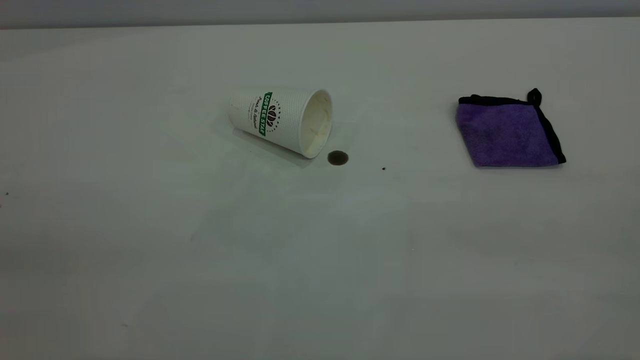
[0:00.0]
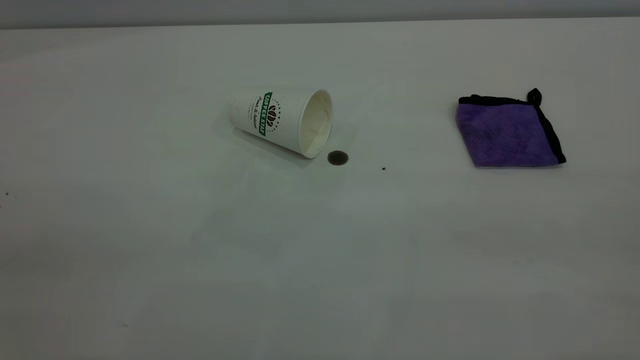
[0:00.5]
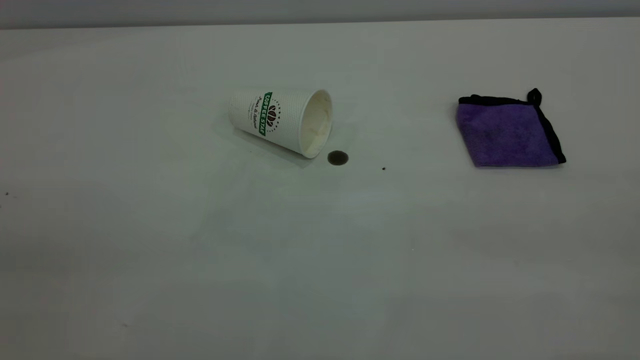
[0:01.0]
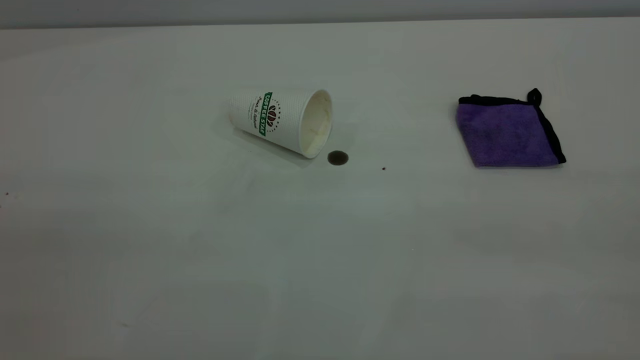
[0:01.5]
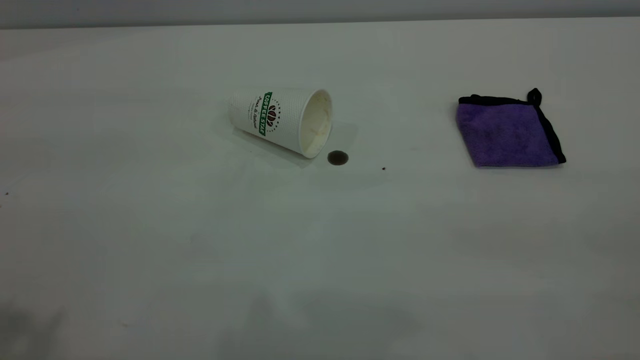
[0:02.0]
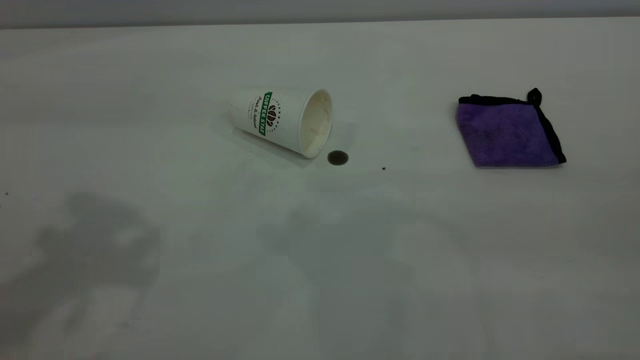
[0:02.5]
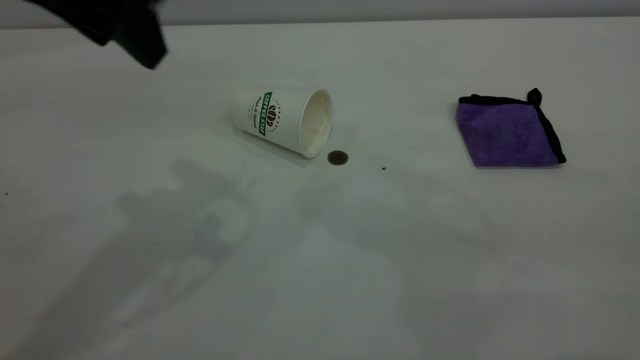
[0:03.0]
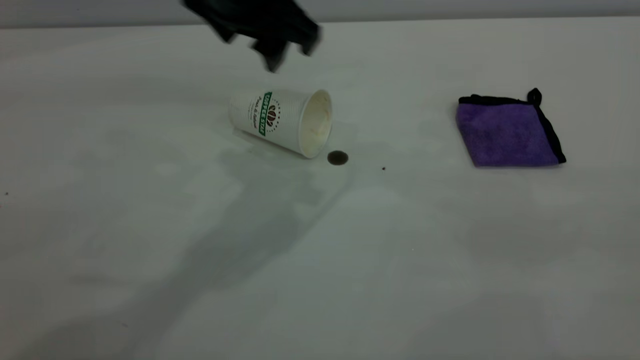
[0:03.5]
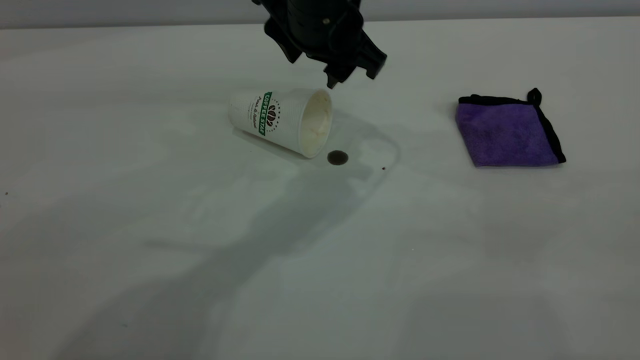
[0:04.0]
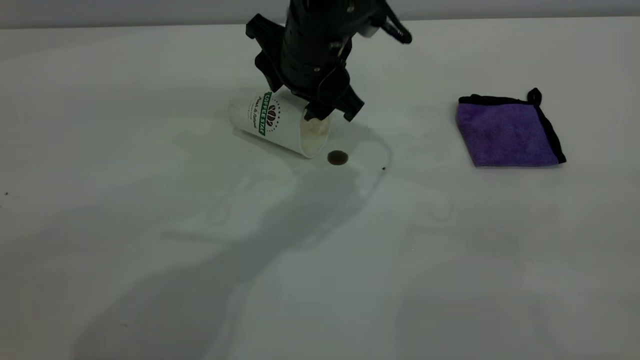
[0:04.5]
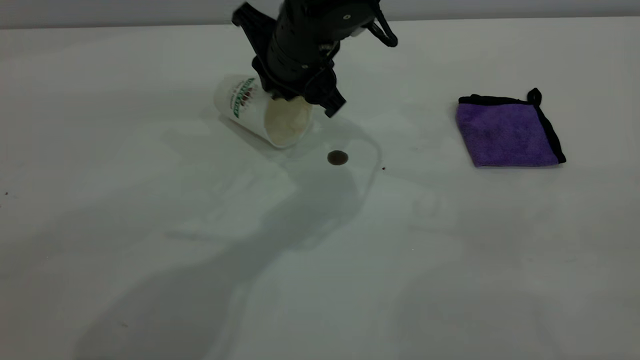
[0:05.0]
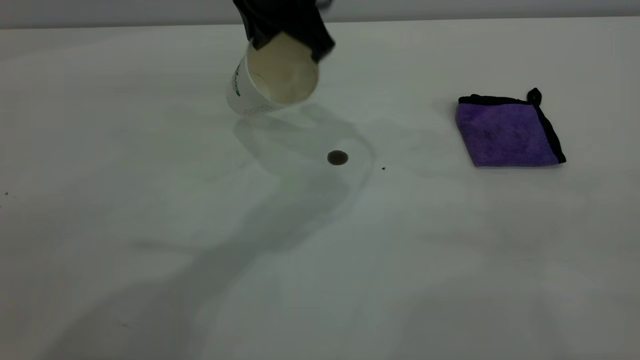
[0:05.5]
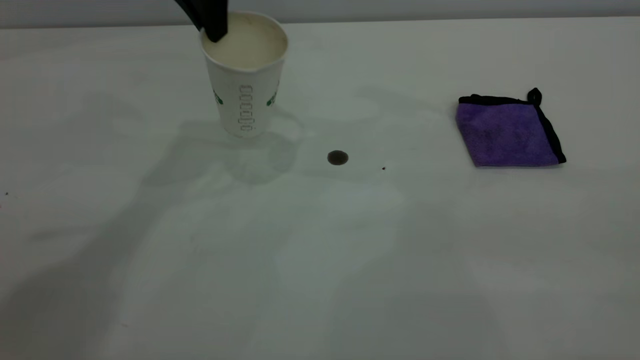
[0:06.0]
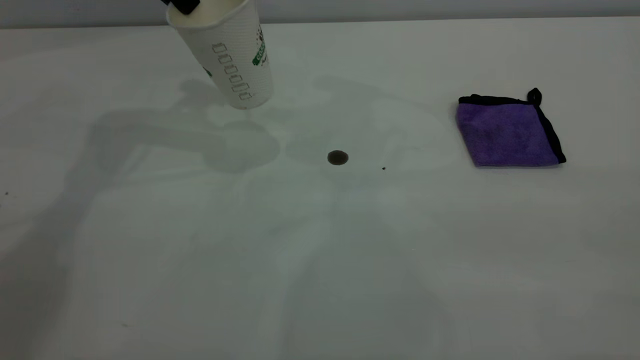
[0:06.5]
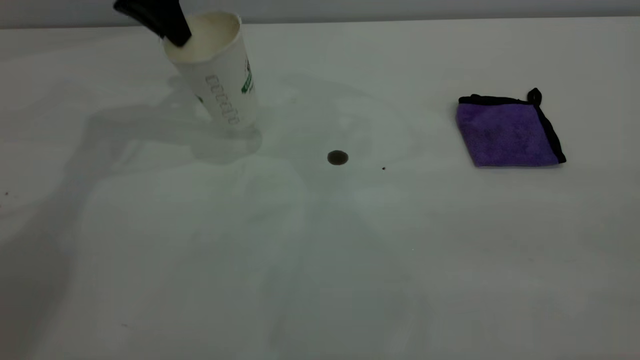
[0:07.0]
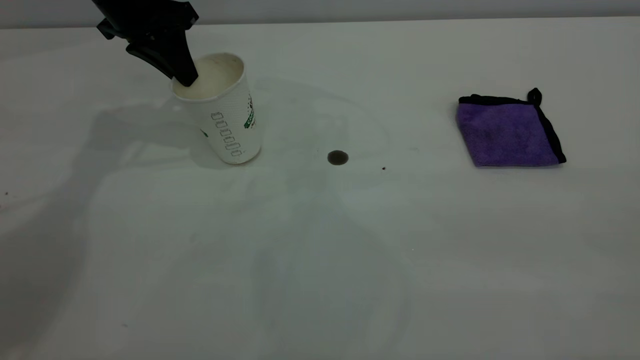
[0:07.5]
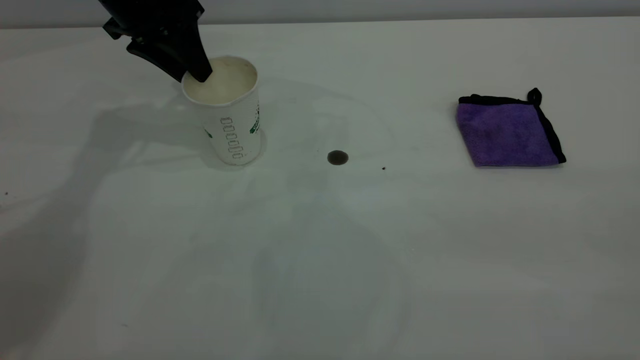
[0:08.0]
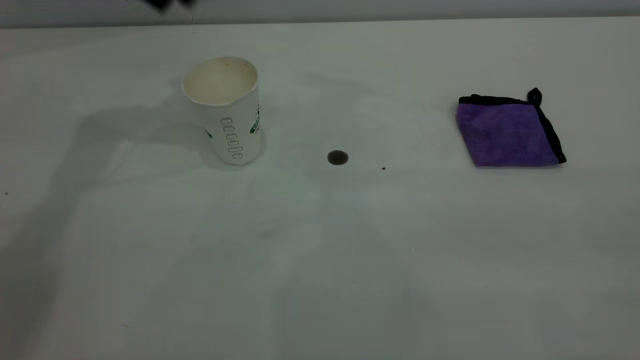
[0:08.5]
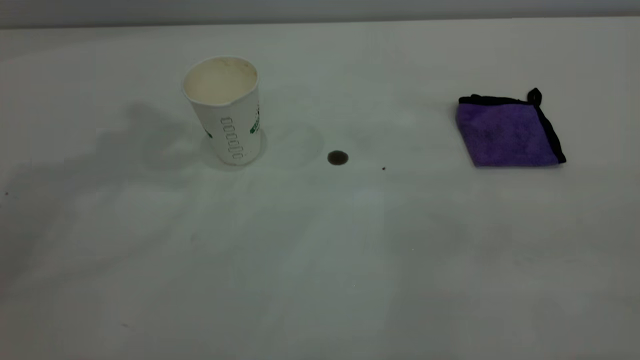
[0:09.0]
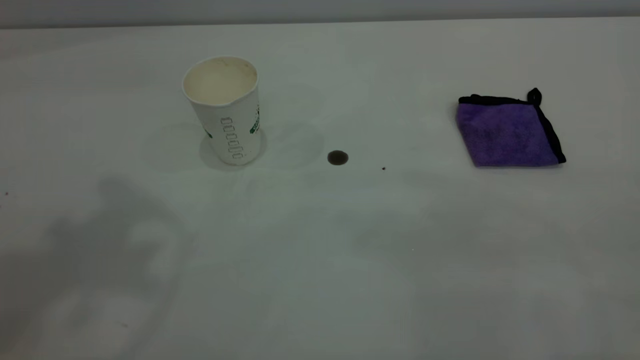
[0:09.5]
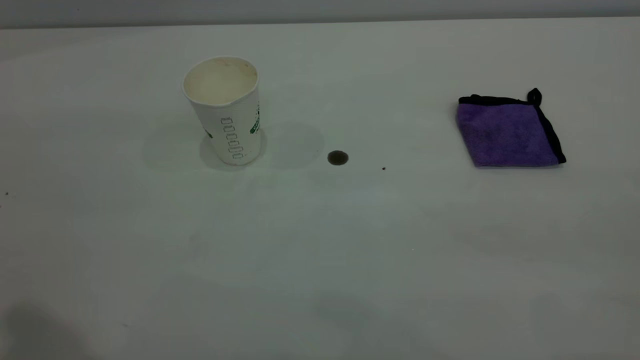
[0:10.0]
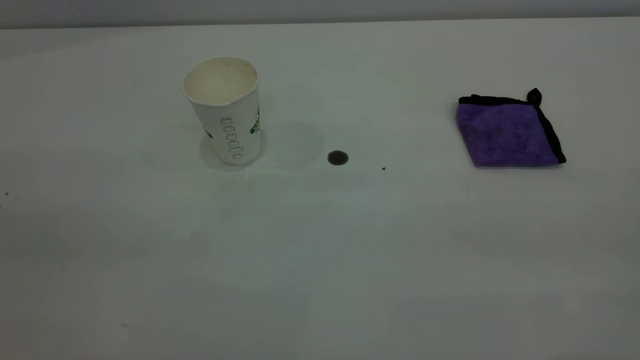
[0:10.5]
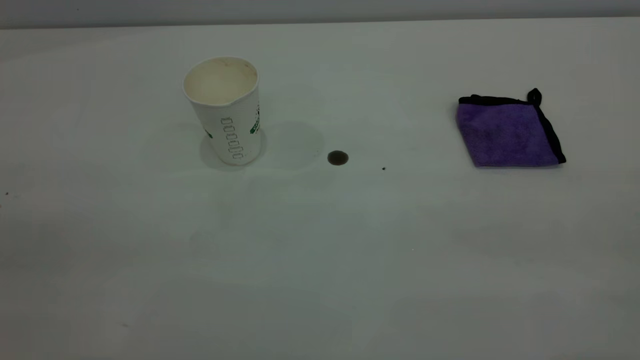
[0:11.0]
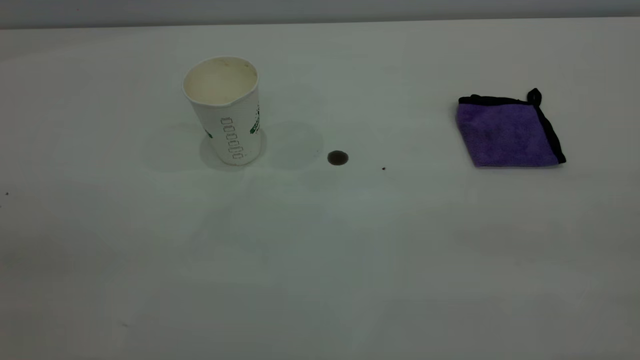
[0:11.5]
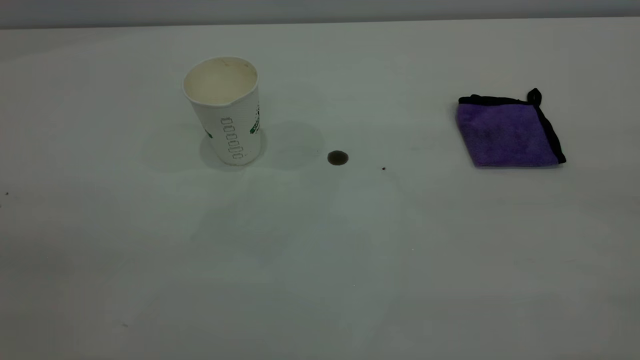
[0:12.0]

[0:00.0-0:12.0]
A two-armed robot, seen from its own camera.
Task of the whole recording: the left gripper pick up the fallen cup and place it upright, the right gripper grasp the purple rag and wipe the coffee stain on the table, the right gripper put the purple rag back in its original position.
Step, 0:00.0 to 0:08.0: Stand the paper cup upright.
0:02.0 to 0:04.0: The left gripper heads to the right, forward and downward, covering some 40 cm.
0:04.0 to 0:06.0: The left gripper moves to the left and upward, about 15 cm, and closes its fingers.
0:06.0 to 0:08.0: The left gripper goes some 10 cm to the left and downward, and opens.
0:08.0 to 0:10.0: The left gripper heads backward and upward, covering some 40 cm.

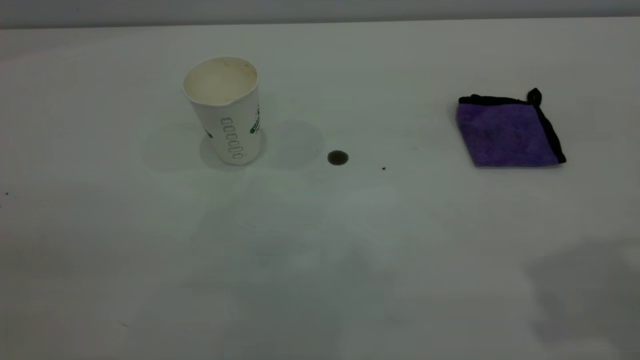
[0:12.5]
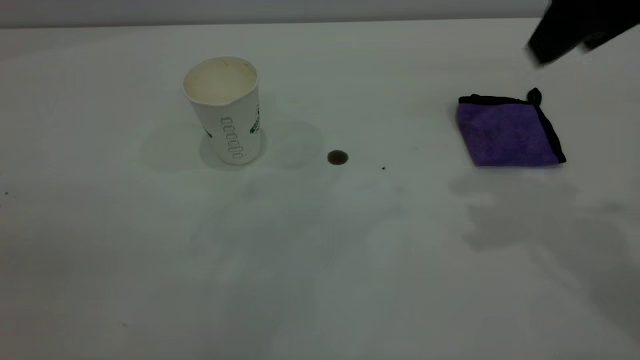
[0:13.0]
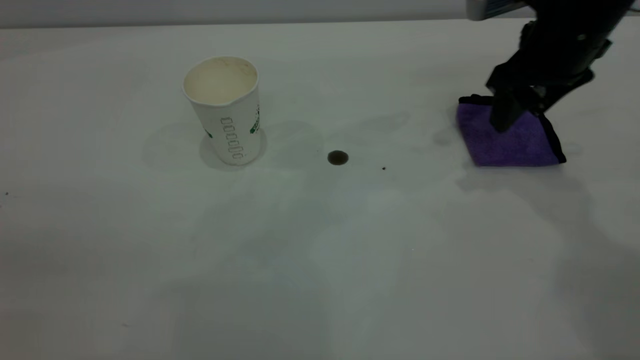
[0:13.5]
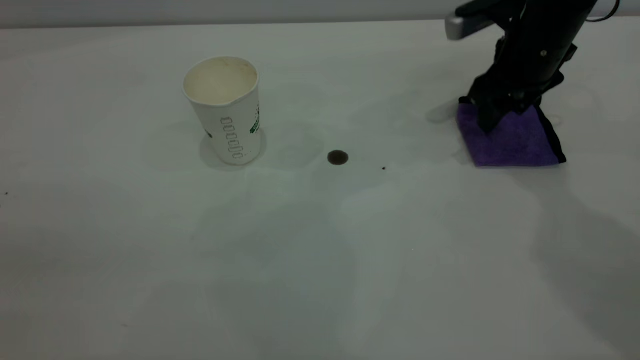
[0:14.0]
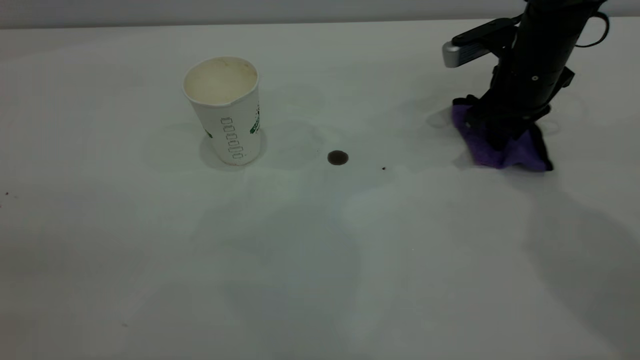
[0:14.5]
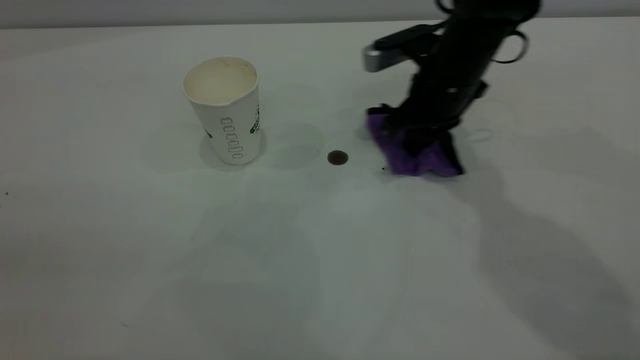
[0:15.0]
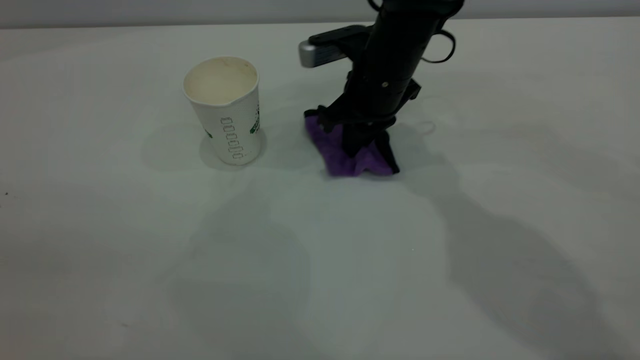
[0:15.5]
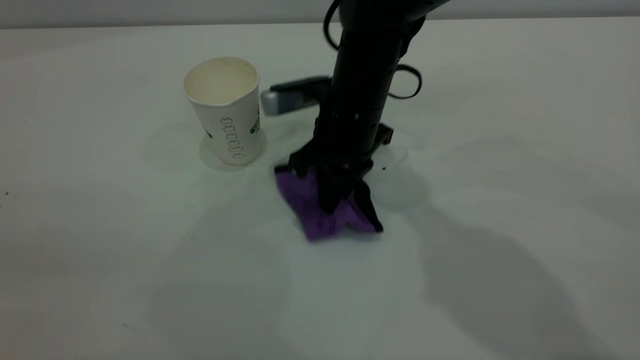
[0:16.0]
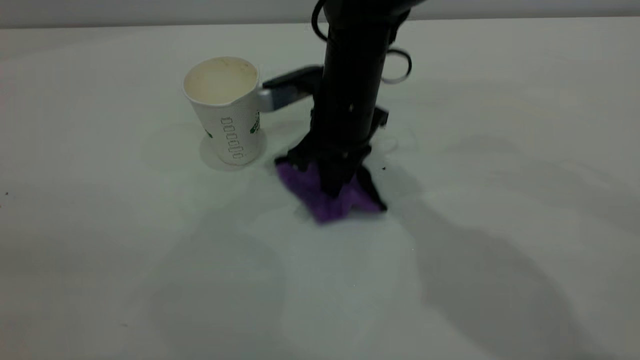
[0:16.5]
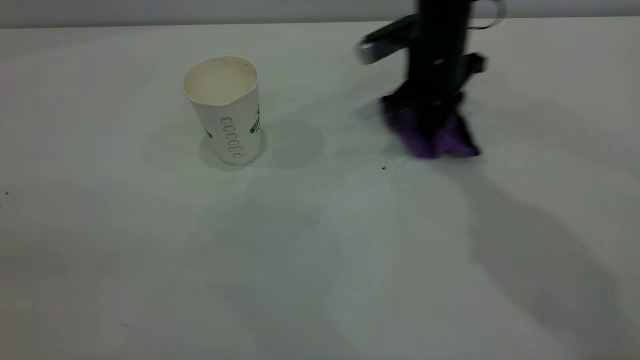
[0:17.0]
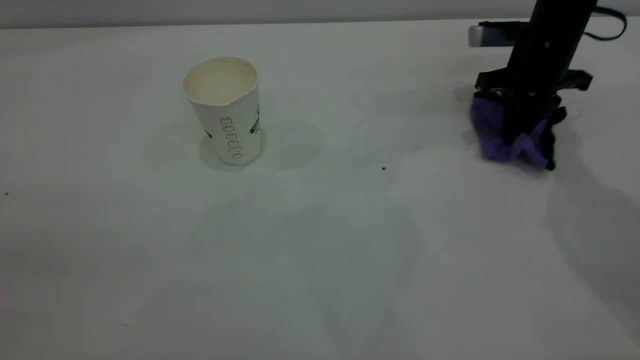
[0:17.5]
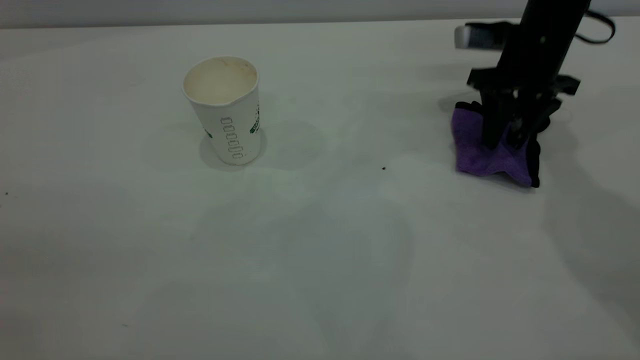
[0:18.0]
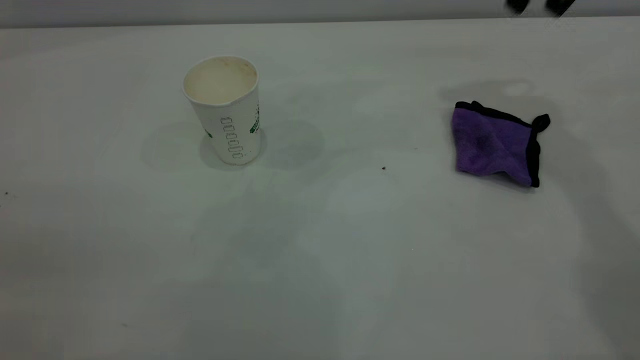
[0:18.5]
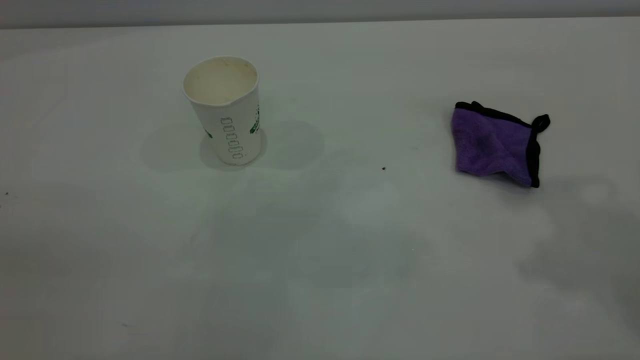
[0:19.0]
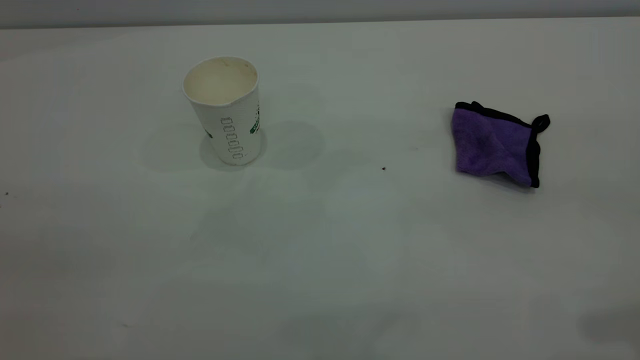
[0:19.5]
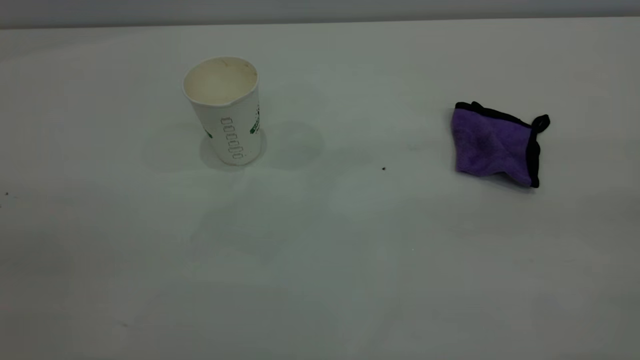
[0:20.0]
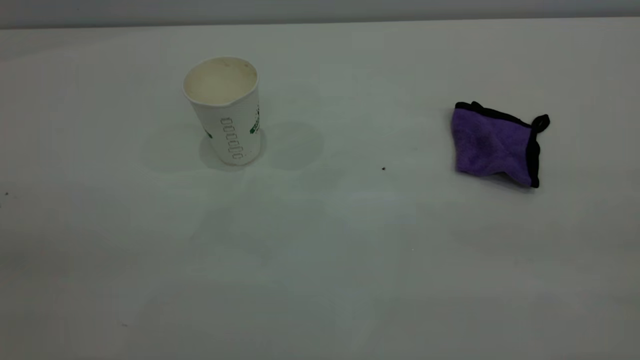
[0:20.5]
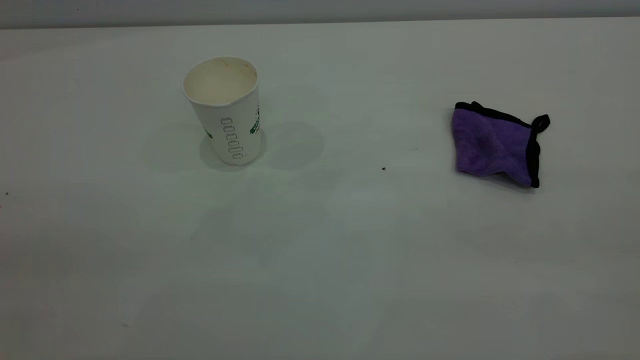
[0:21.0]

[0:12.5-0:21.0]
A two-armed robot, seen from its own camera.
Task of the whole recording: the left gripper pick up the fallen cup and place it upright, the right gripper grasp the purple rag and wipe the coffee stain on the table, the right gripper put the purple rag back in its original position.
Step, 0:12.5 to 0:18.0: Wipe the stains off the table with a rag.
0:12.5 to 0:14.5: The right gripper moves downward and forward, roughly 35 cm, and closes its fingers.
0:14.5 to 0:16.5: The right gripper shifts roughly 20 cm to the left.
0:16.5 to 0:19.0: The right gripper shifts about 40 cm upward, to the right and backward, and opens up.
